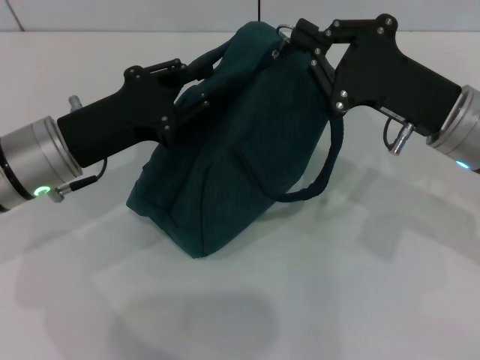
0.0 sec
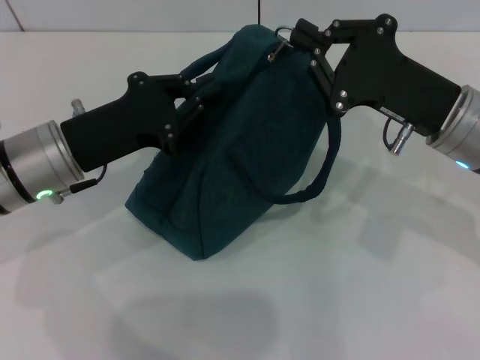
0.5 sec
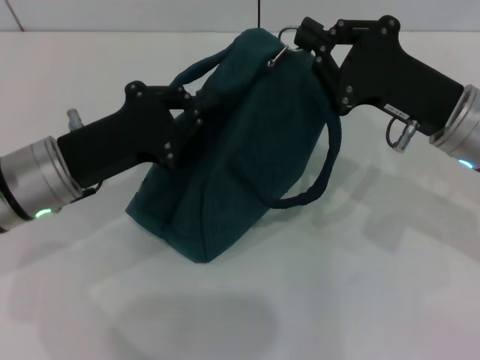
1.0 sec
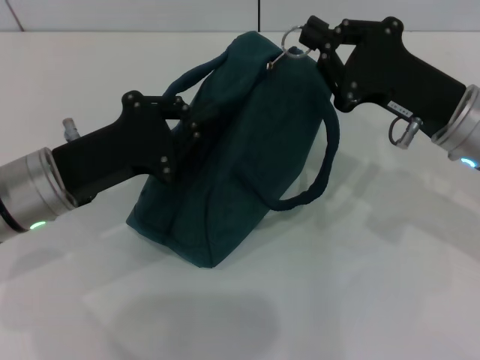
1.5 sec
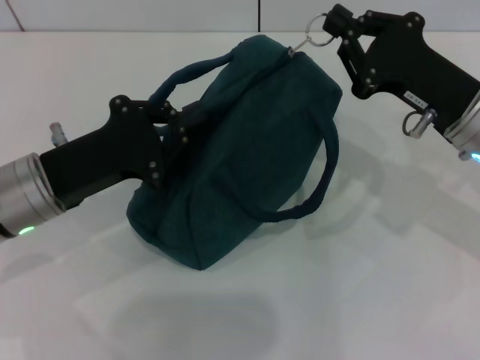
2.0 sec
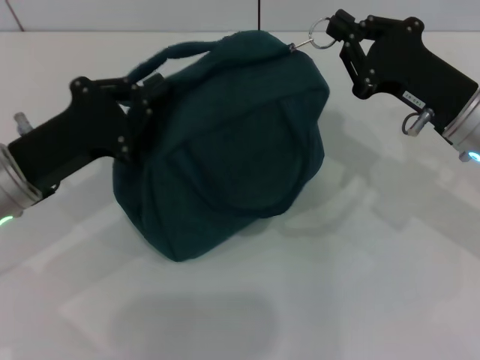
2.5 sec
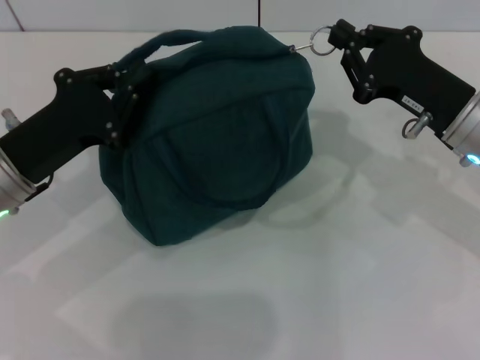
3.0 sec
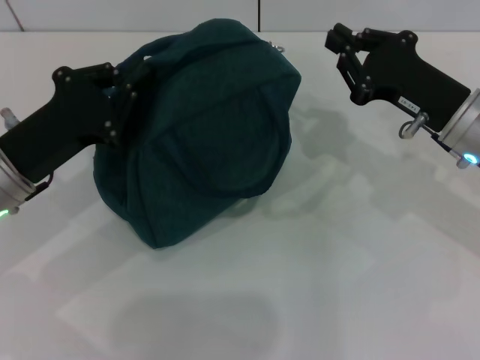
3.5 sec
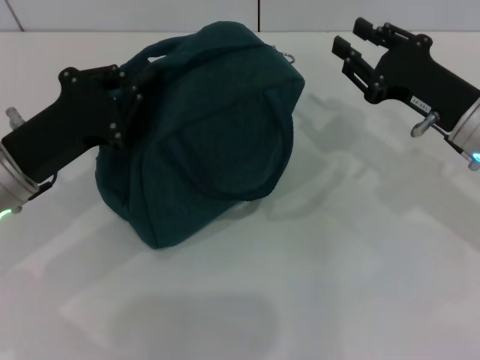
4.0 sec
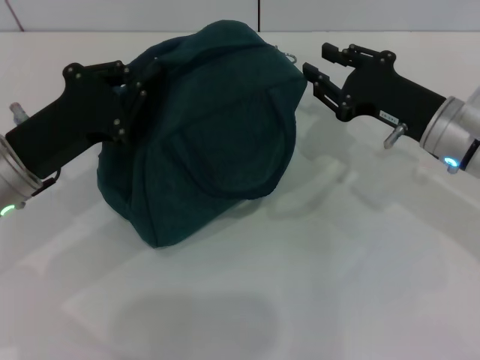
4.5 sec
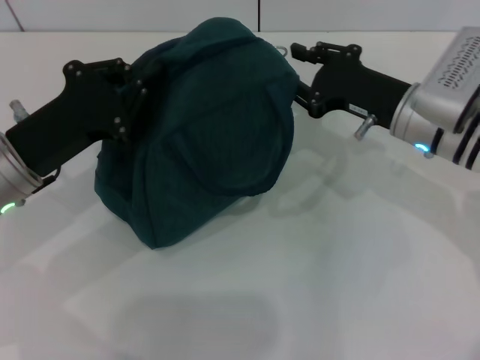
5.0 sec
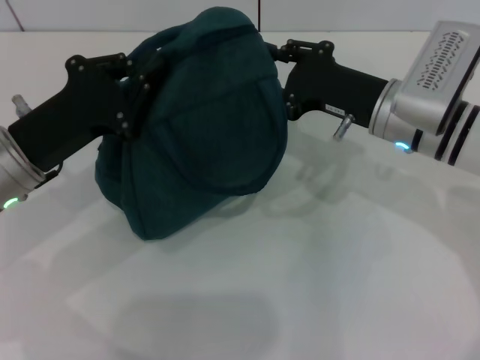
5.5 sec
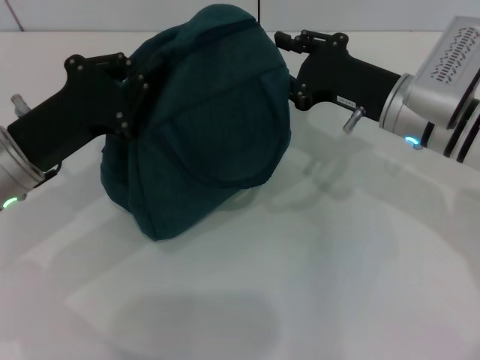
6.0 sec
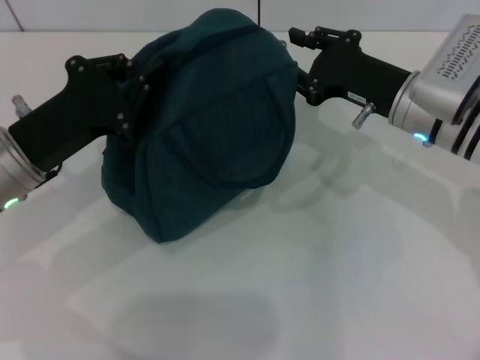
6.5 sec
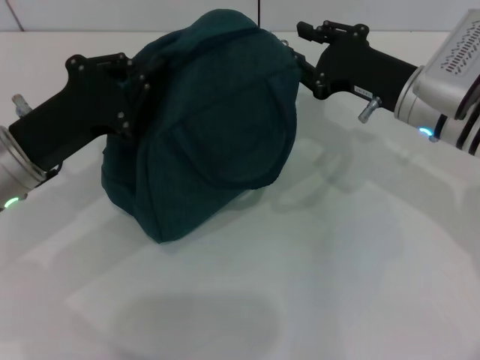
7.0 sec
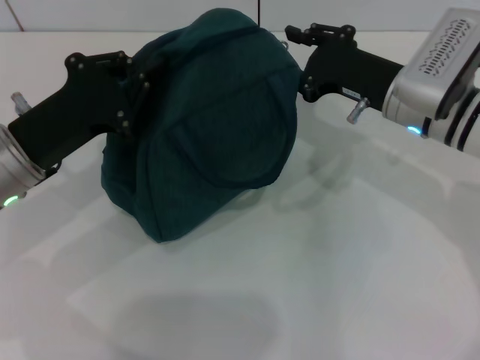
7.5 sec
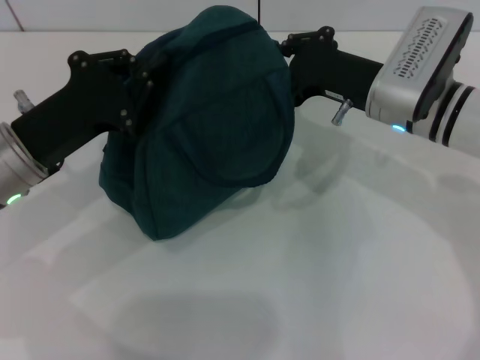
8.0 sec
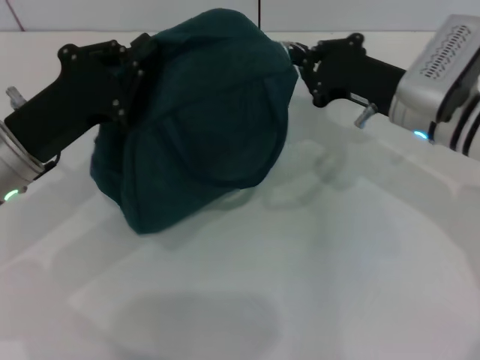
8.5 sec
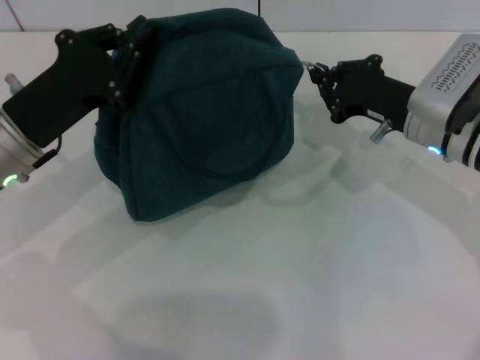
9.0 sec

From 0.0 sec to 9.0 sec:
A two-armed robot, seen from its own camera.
From 0.0 sec to 2.0 sec: The left gripper closes up.
From 2.0 sec to 4.5 sec: The right gripper opens its fingers.
From 4.5 sec to 7.0 sec: There are only small adjustments of the grippers.
From 7.0 sec to 9.0 sec: The right gripper closes its fingers.

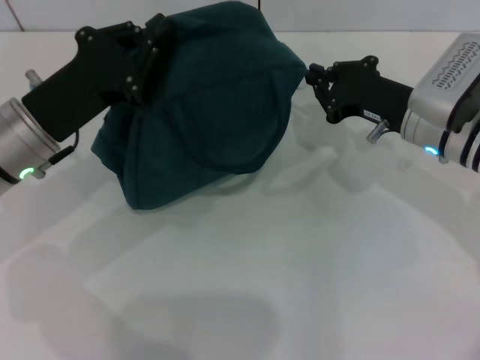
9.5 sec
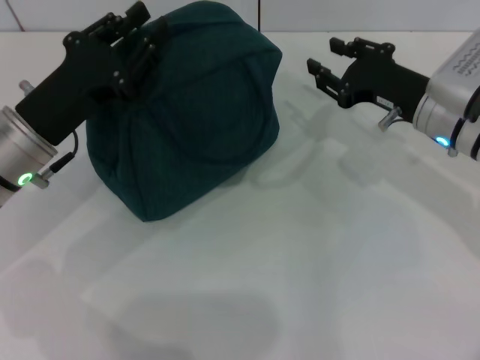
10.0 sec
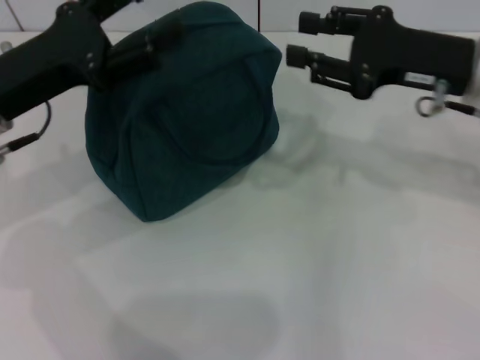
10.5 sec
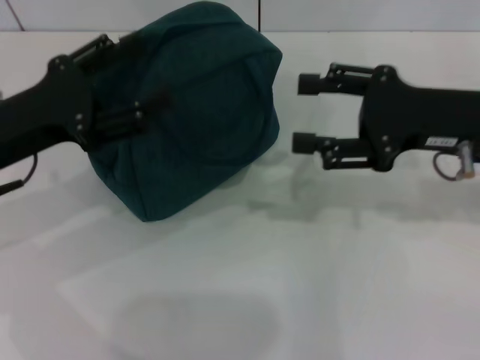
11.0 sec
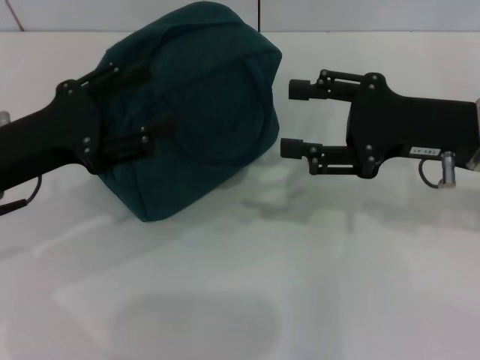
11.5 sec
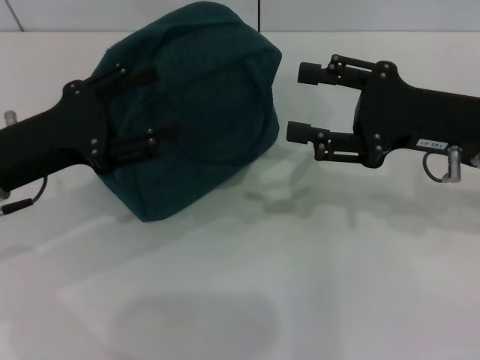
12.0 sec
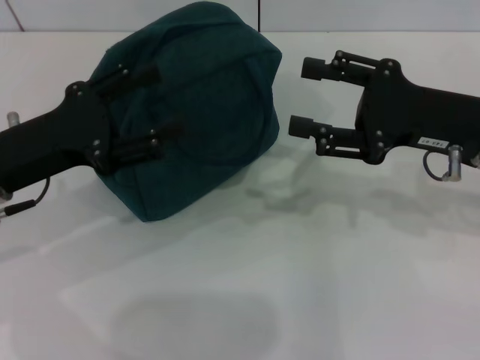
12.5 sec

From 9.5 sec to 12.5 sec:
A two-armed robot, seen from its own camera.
From 9.5 sec to 11.0 sec: The right gripper travels upward and backward by approximately 10 cm, and opens up, while the left gripper shifts by some 5 cm, and opens its fingers.
From 11.0 sec to 12.5 sec: The grippers stay close to where they were, moving slightly.

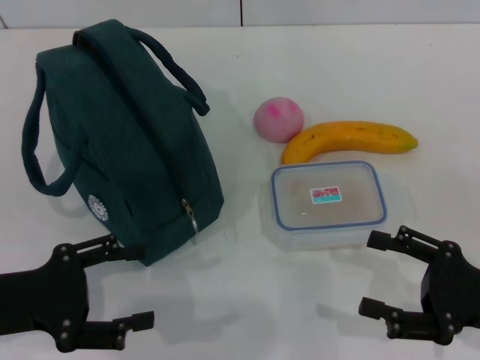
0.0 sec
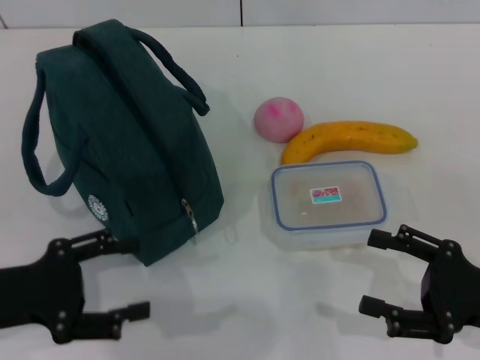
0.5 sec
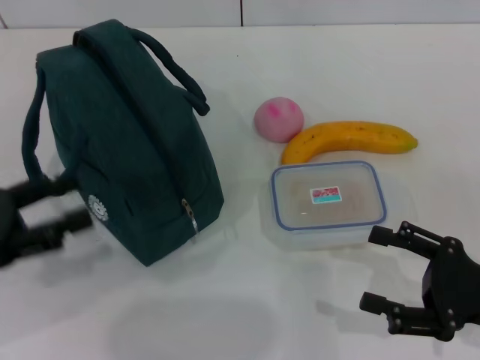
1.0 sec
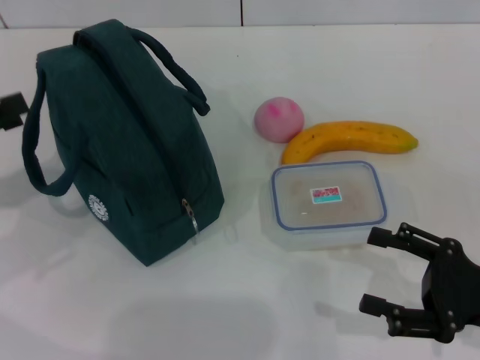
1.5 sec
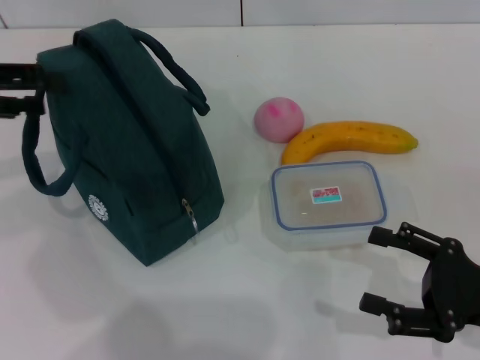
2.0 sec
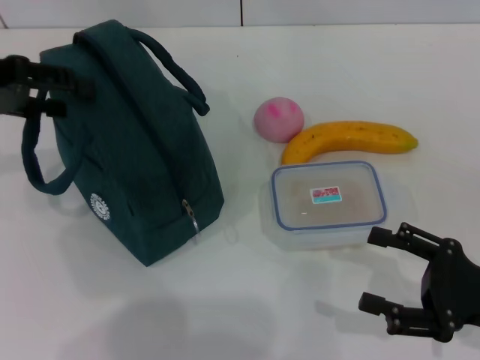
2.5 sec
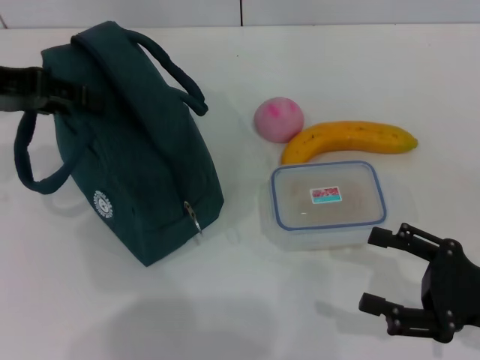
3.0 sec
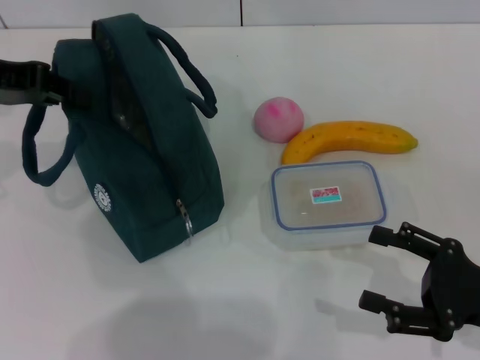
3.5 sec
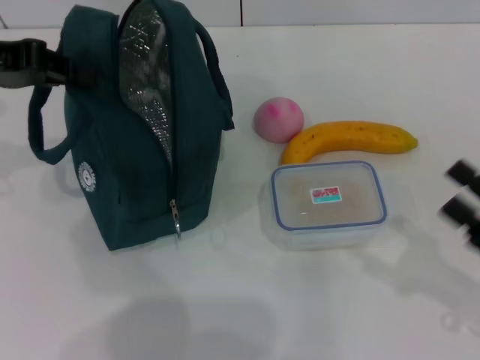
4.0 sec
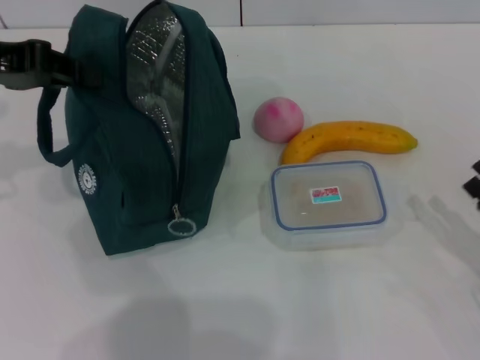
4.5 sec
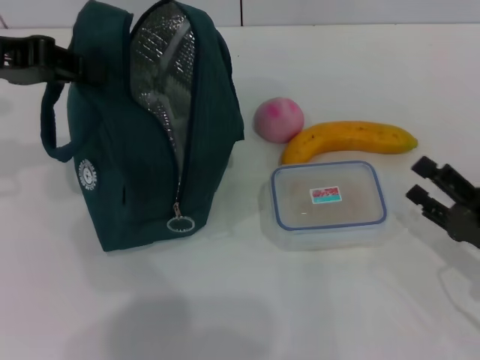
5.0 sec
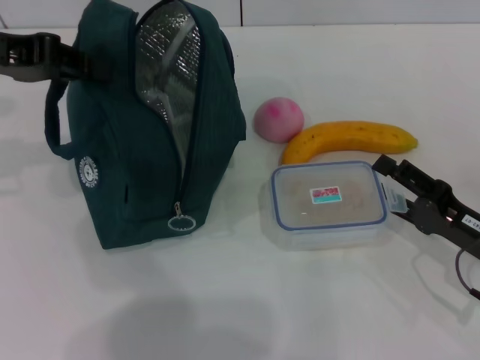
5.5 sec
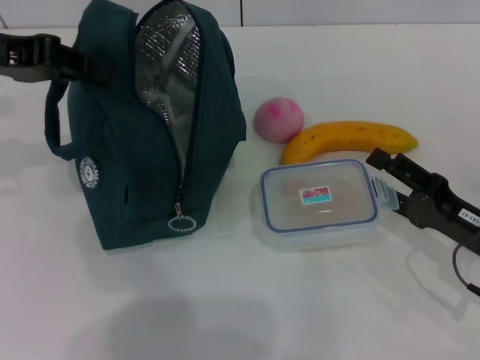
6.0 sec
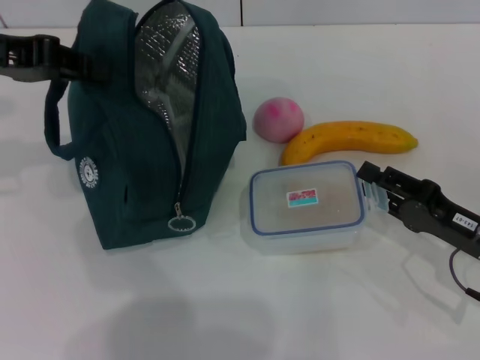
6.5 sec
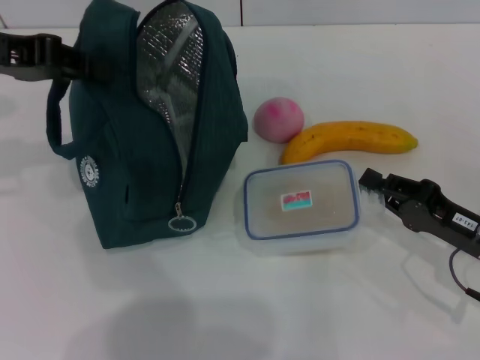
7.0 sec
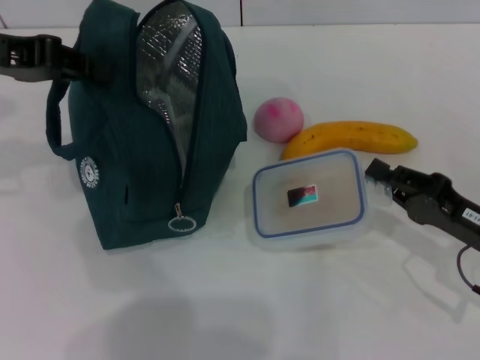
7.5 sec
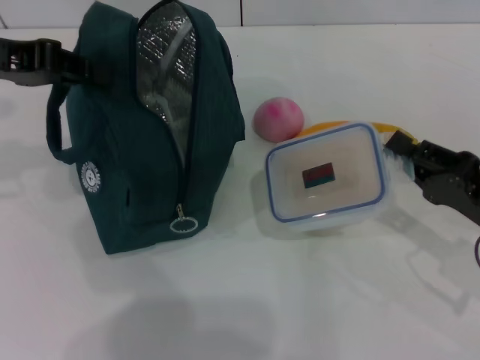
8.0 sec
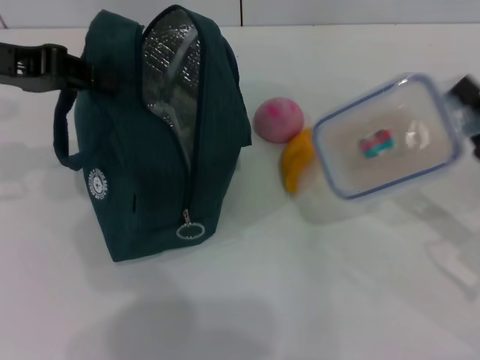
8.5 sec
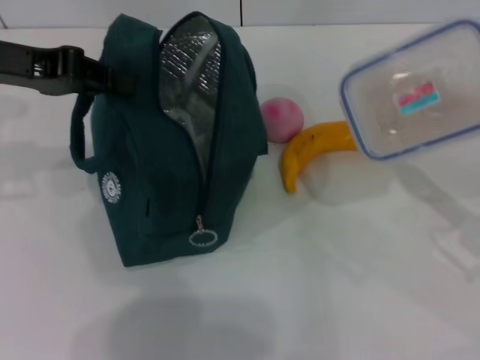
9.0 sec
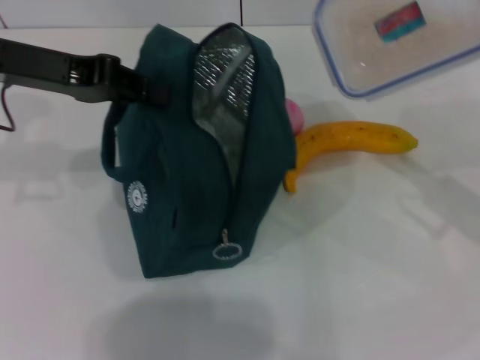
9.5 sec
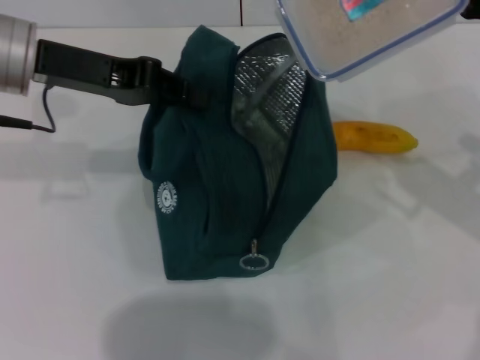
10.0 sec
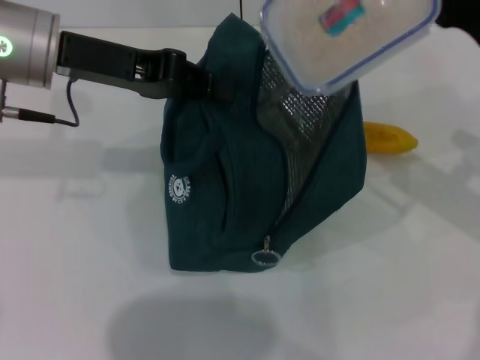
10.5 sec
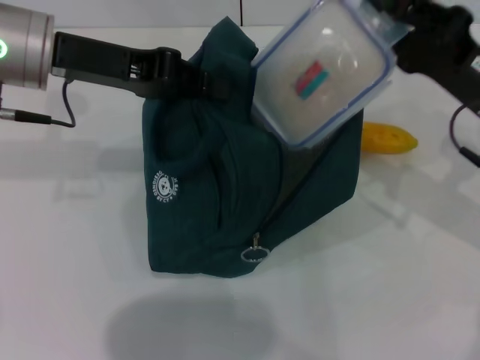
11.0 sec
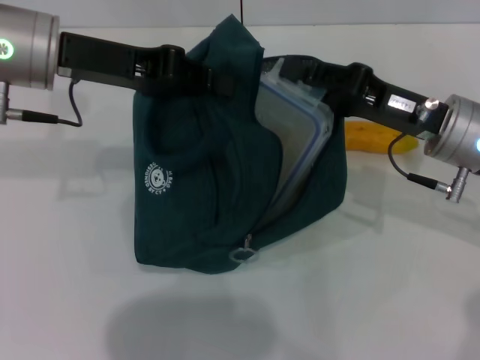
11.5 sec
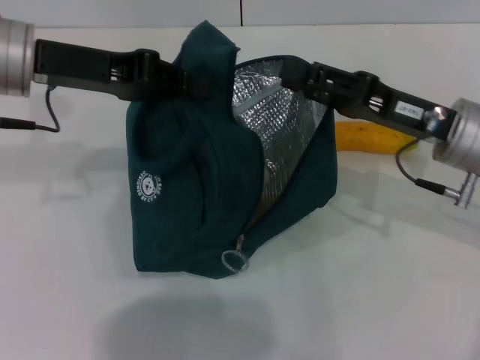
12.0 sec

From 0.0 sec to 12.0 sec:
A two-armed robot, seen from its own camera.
Step, from 0.0 sec to 3.5 sec: Hold the lunch bag with your left hand.
Step, from 4.0 sec to 7.0 sec: Pick up the lunch box with your right hand.
Step, from 7.5 sec to 12.0 sec: Place the lunch box into the lunch bag with your right hand.
From 0.0 sec to 2.0 sec: The left gripper is displaced upward and forward by about 20 cm.
From 2.0 sec to 4.0 sec: The left gripper changes place by some 5 cm, and closes.
From 4.0 sec to 6.0 sec: The right gripper shifts approximately 5 cm forward.
From 6.0 sec to 8.0 sec: The right gripper closes its fingers.
From 8.0 sec to 10.0 sec: The right gripper travels upward and forward by about 10 cm, while the left gripper travels to the right by about 5 cm.
From 10.0 sec to 12.0 sec: The right gripper changes place by about 5 cm.

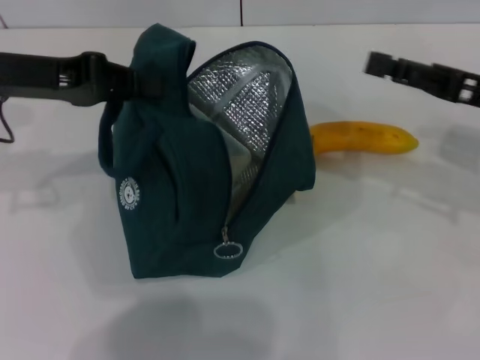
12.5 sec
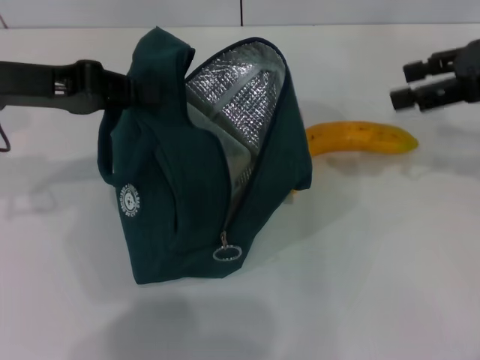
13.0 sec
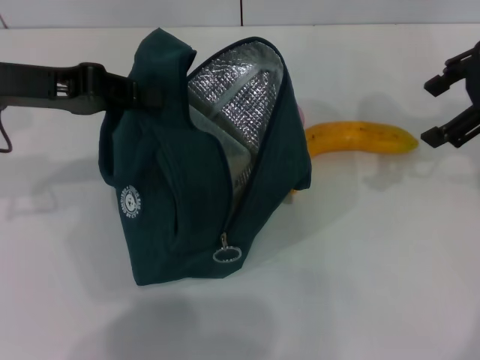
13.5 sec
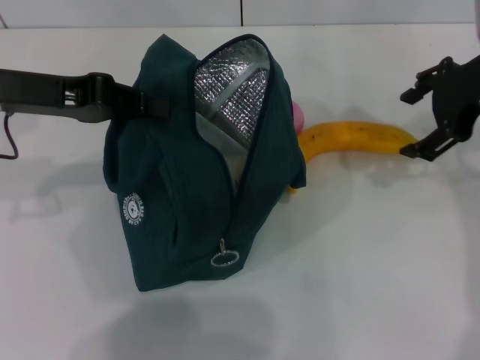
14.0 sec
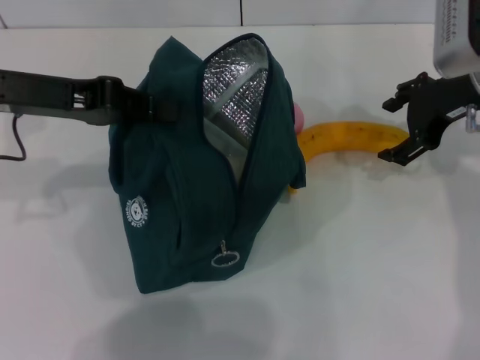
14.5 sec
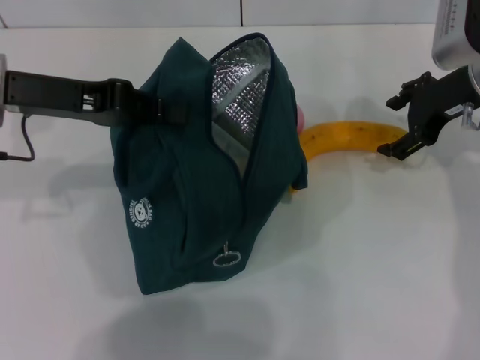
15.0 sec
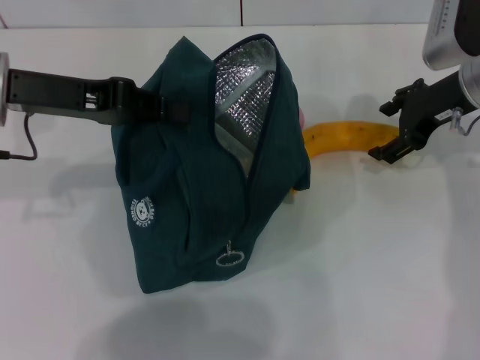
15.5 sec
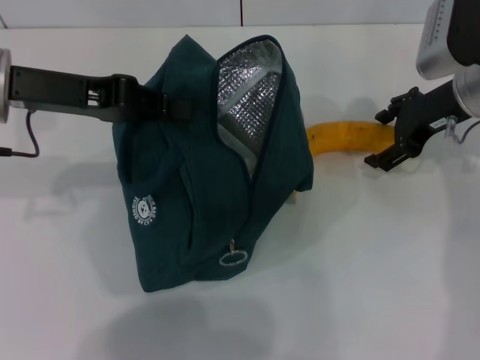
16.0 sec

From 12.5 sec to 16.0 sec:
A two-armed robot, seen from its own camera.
From 12.5 sec to 14.5 sec: The right gripper heads forward and to the left, covering about 10 cm, and goes upward and returns, about 10 cm each way.
From 14.5 sec to 16.0 sec: The grippers move only a little.
